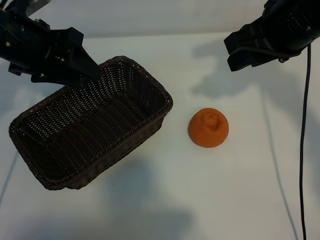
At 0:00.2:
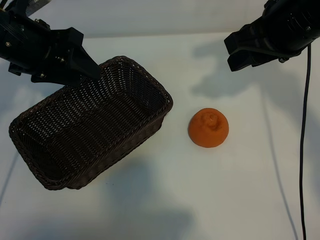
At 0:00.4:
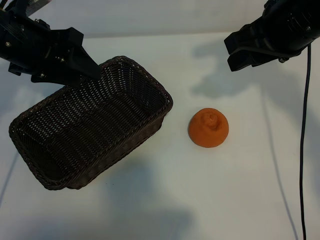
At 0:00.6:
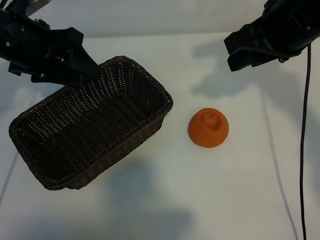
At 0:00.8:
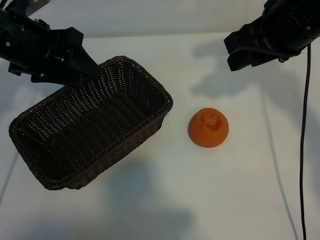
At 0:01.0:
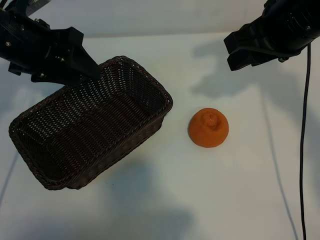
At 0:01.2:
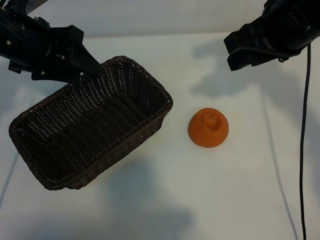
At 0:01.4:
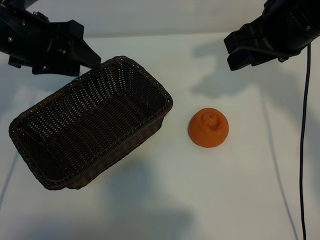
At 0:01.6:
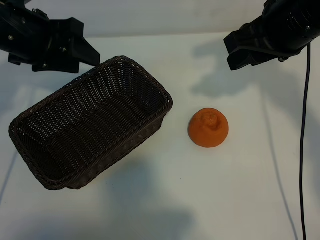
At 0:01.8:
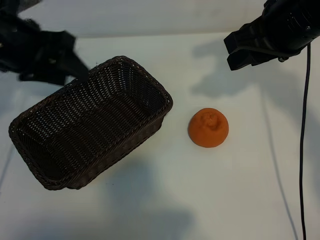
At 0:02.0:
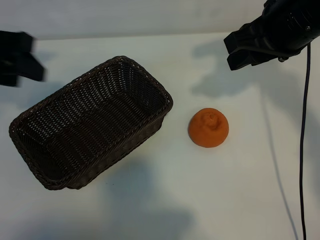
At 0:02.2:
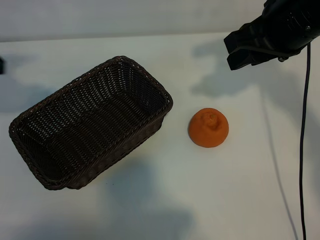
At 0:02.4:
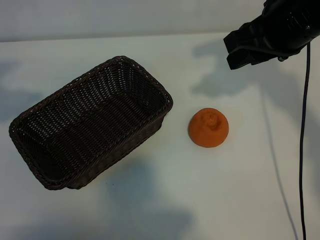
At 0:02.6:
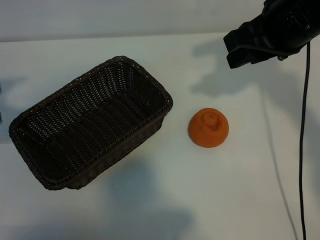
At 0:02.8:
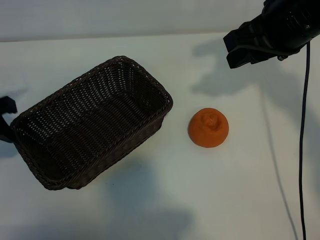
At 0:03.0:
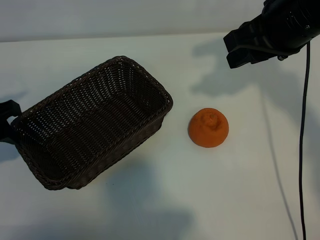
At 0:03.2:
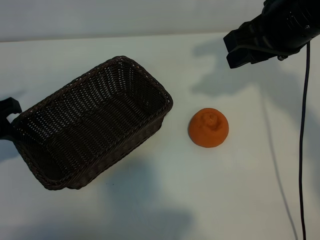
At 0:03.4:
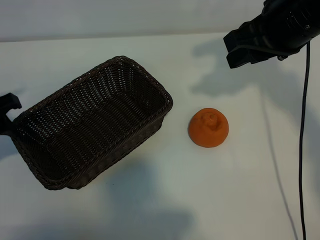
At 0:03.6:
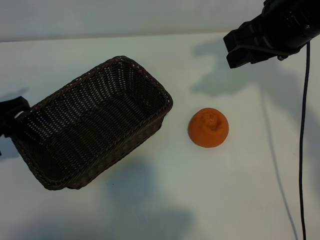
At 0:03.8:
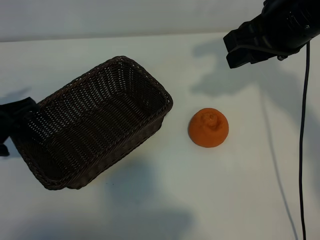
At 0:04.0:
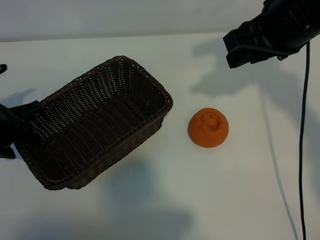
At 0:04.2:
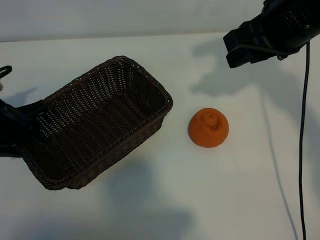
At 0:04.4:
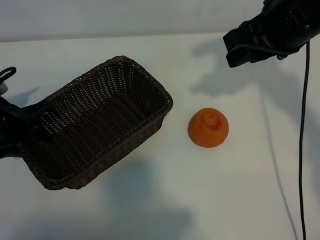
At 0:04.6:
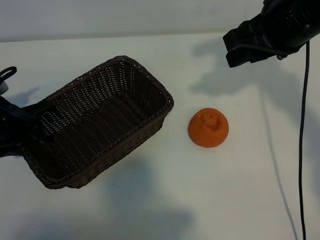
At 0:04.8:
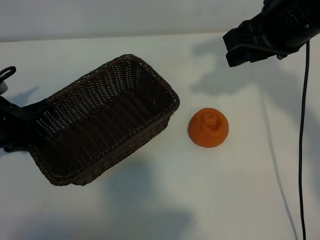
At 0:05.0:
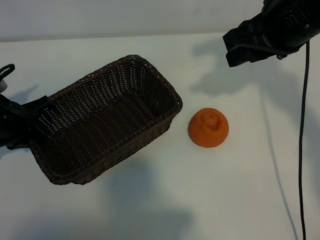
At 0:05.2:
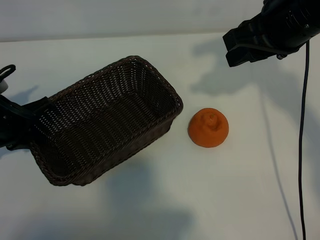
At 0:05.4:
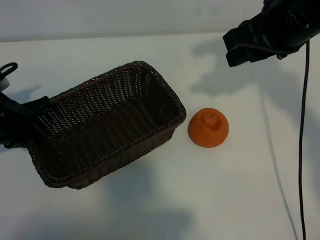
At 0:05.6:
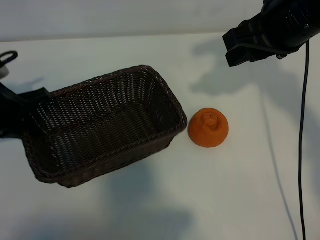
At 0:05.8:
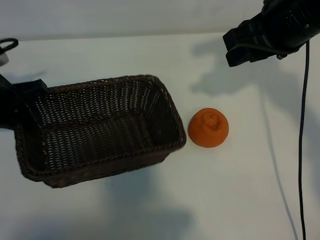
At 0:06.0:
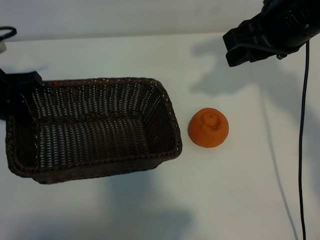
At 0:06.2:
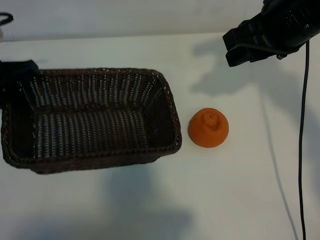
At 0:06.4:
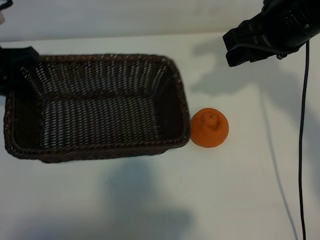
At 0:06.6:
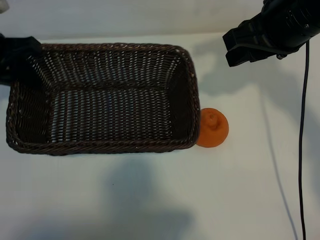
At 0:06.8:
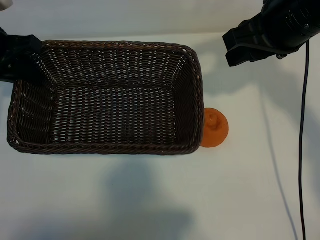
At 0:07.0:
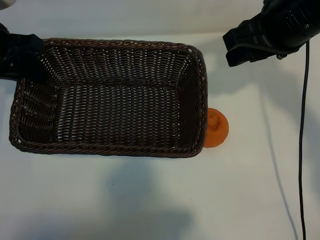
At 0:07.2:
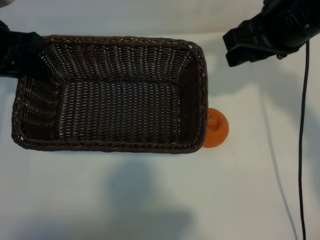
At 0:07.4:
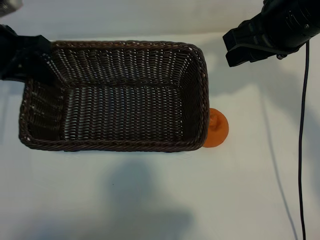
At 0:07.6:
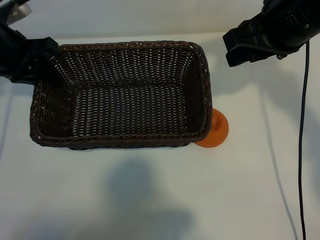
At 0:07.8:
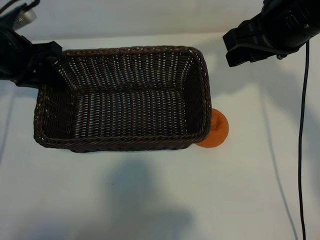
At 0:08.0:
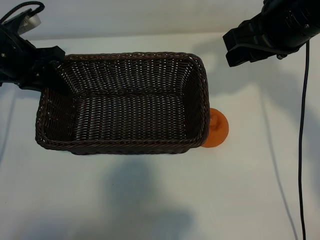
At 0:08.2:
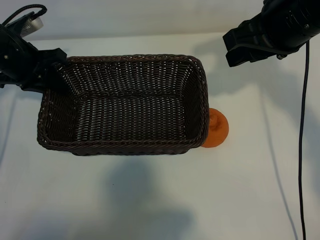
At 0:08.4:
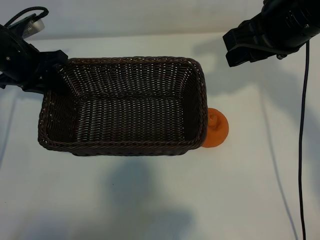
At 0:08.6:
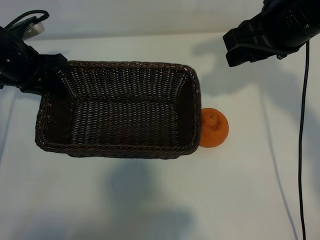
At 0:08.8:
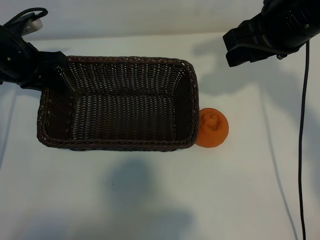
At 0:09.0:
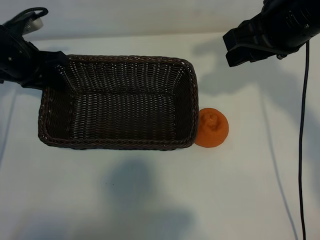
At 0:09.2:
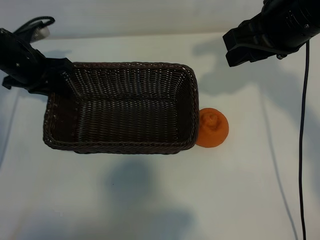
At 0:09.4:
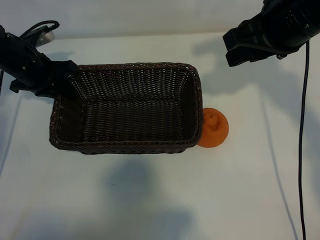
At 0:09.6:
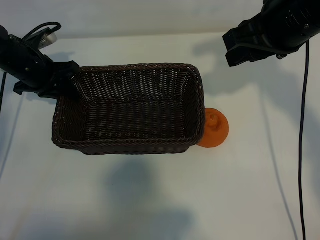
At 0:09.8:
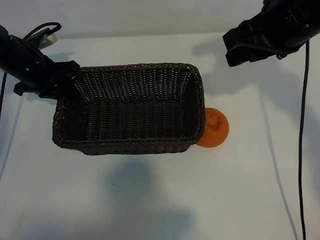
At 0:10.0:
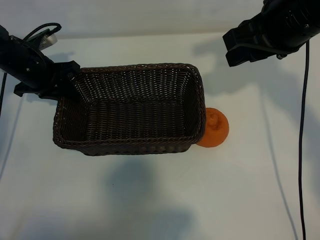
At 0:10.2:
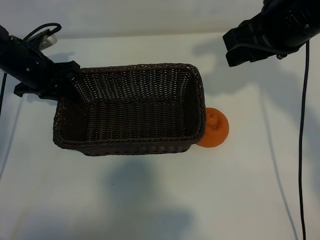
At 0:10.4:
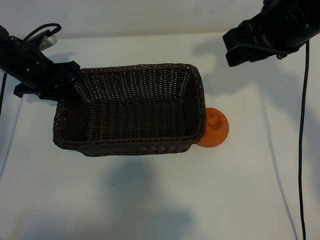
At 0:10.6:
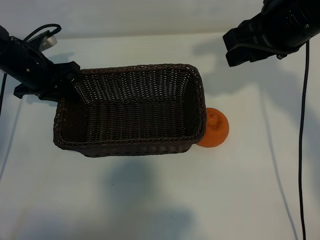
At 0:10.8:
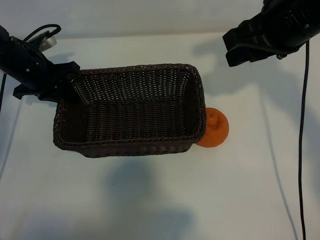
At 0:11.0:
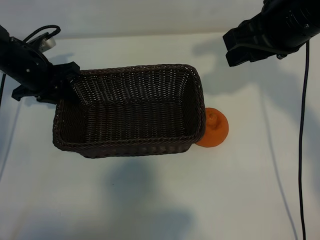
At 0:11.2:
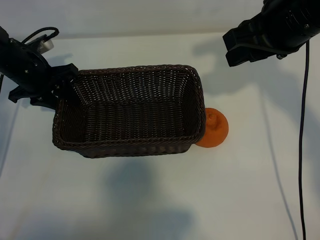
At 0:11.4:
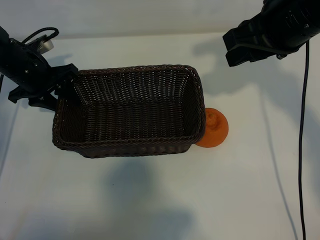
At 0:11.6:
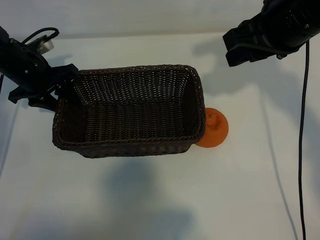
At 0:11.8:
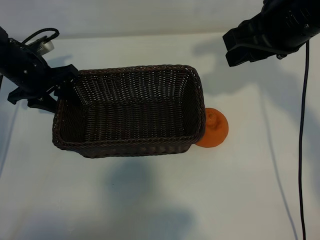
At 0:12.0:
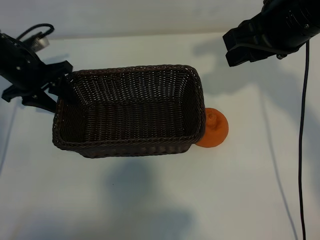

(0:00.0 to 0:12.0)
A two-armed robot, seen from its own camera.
Task of the whole recording: pick up the orange and put it into the basket.
Step, 0:01.2 - 0:04.8: Grasp the basket with left gripper.
Step, 0:05.0 - 0:11.2: Place the basket in the center of view with left gripper.

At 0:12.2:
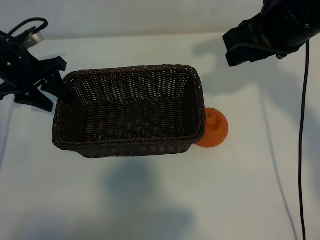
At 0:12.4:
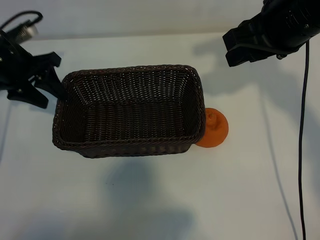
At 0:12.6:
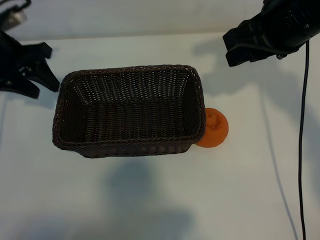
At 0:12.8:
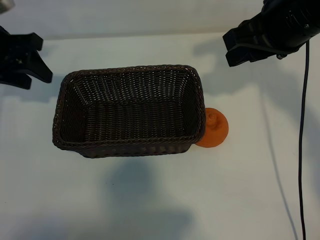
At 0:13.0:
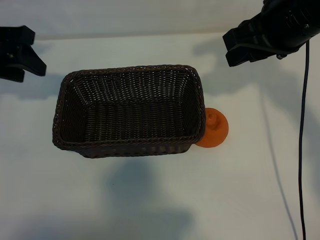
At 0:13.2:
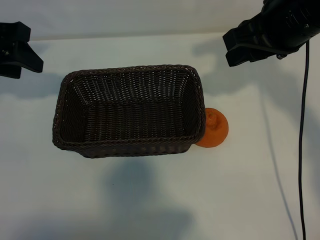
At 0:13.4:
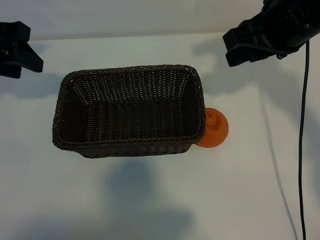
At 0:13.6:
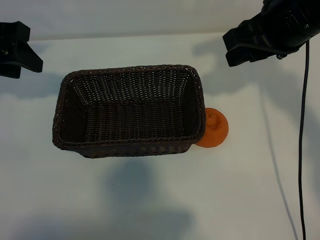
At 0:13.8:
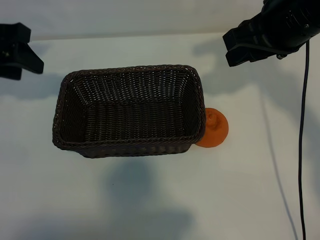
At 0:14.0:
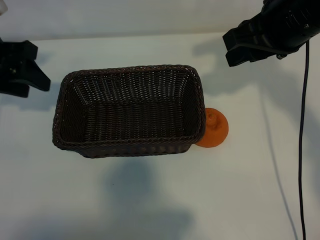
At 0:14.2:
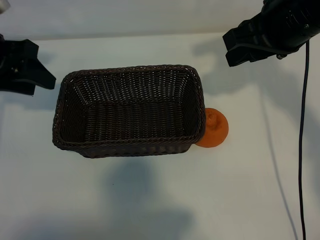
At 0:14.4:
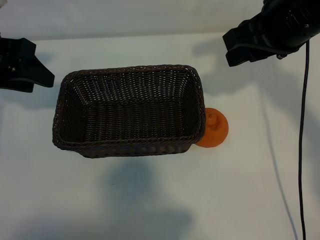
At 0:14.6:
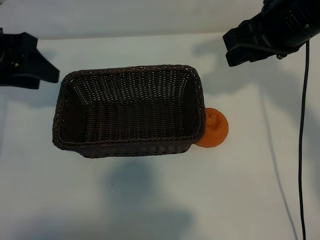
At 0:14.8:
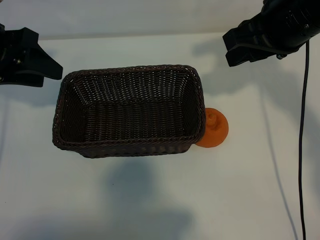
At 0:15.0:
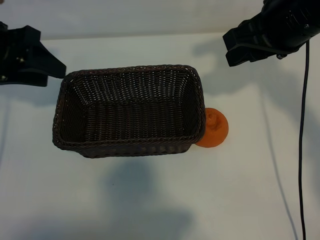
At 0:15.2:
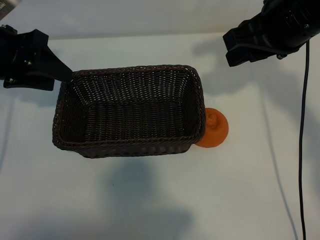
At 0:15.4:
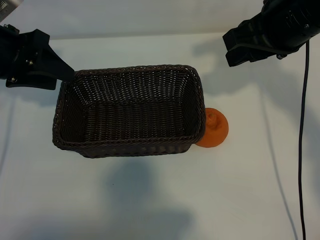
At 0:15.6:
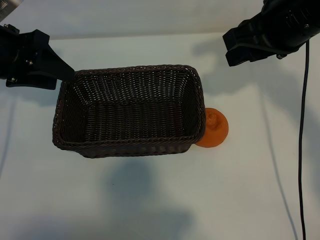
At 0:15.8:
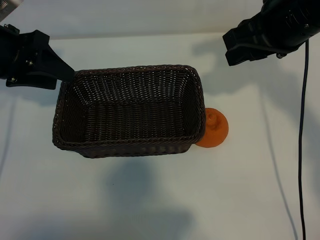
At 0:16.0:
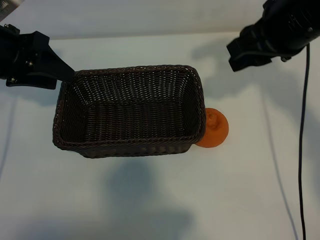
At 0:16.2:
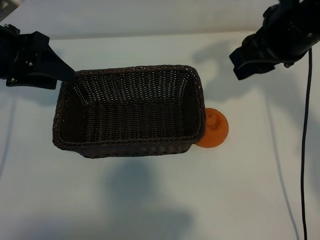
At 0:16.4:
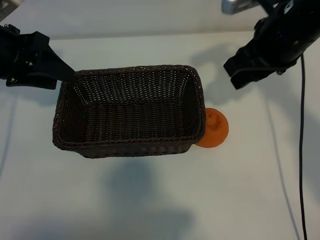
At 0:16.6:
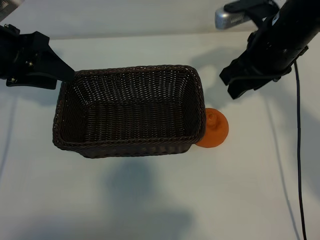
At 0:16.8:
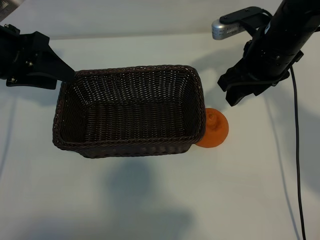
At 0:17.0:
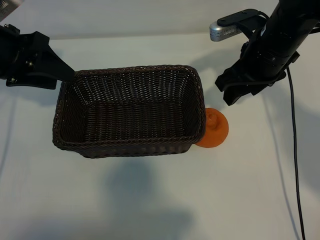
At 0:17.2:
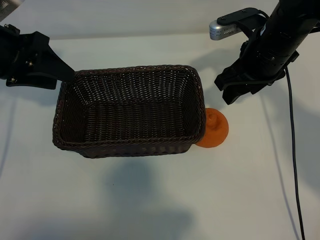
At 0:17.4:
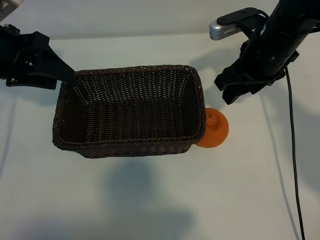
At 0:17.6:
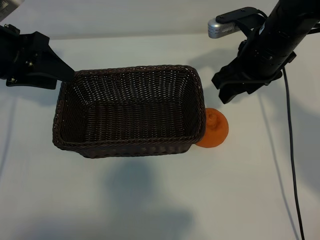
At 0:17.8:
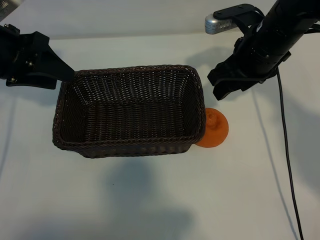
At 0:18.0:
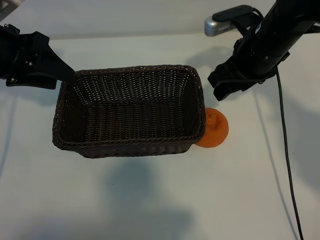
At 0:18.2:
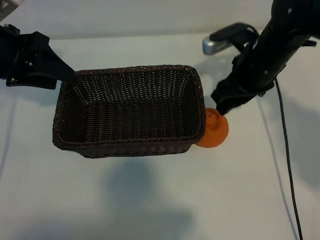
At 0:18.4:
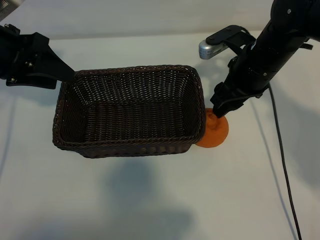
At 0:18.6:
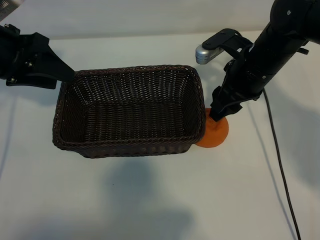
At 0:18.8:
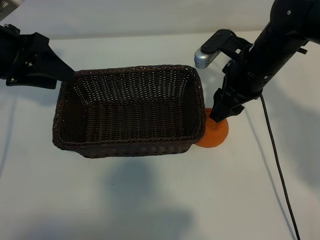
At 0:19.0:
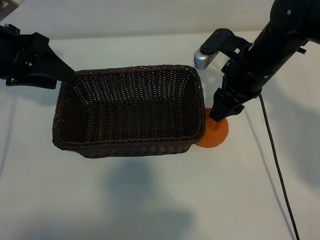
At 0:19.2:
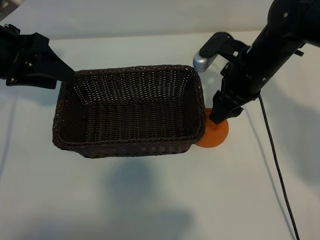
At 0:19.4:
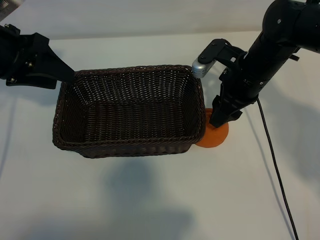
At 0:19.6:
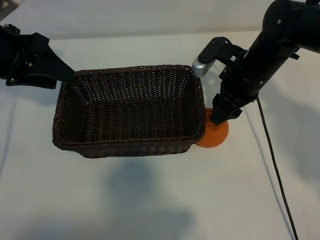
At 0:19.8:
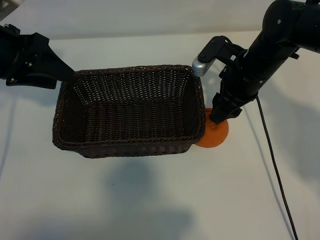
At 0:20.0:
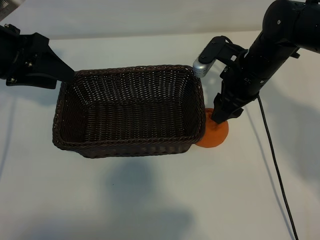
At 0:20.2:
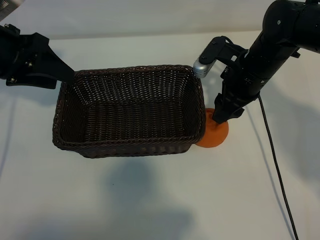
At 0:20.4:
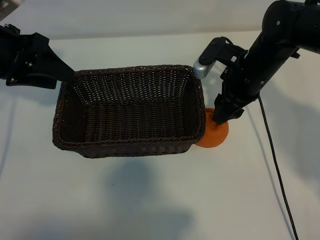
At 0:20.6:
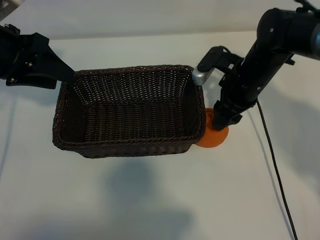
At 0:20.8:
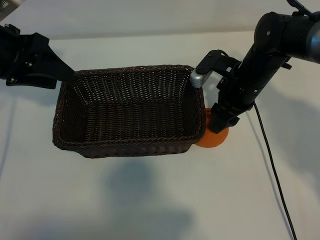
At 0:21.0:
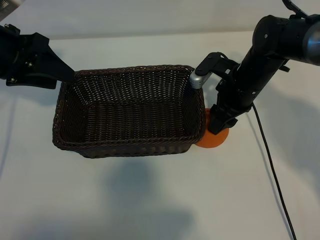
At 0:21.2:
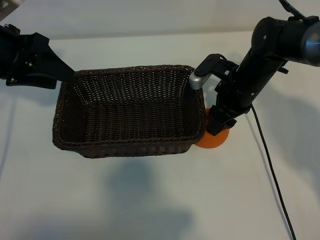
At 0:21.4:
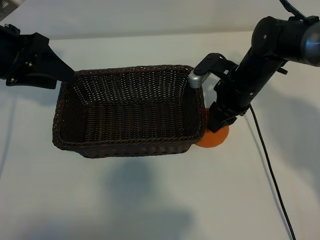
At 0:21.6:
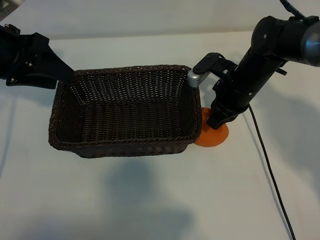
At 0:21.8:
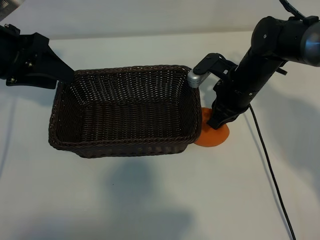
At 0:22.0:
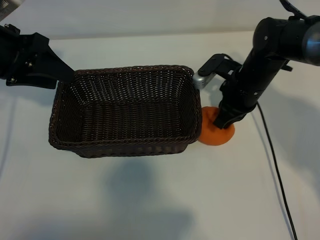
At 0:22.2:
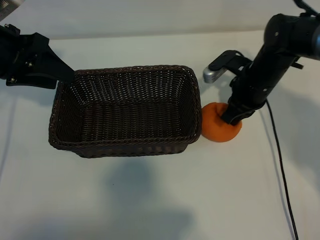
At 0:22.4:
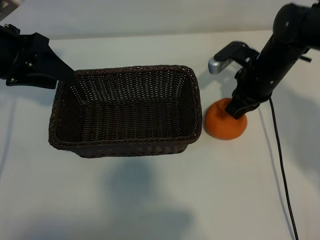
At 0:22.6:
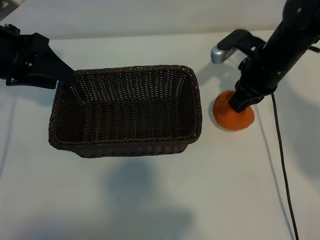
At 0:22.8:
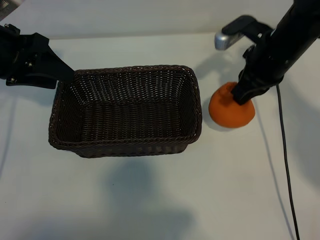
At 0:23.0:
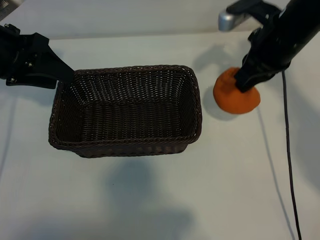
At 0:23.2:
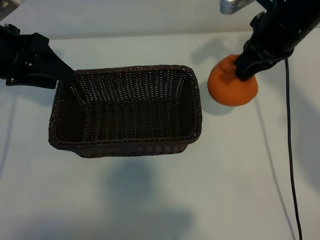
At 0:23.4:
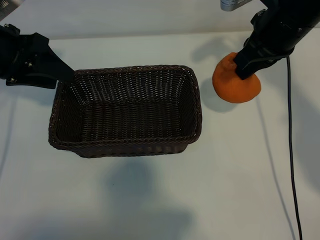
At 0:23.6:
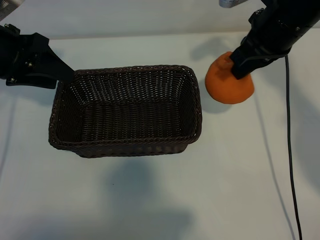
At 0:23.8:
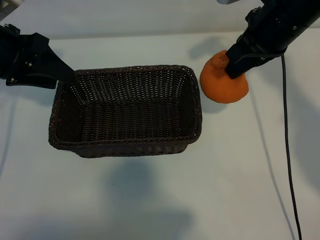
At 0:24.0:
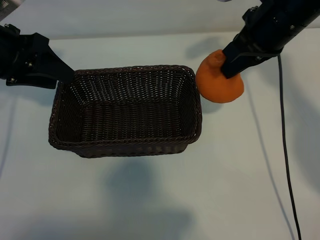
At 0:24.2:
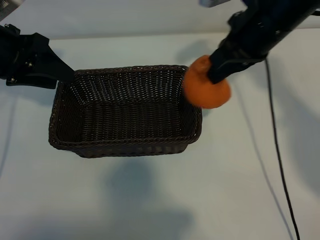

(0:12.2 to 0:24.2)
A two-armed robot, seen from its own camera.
Task of the whole recording: pick up the orange and put it into the basket.
Step, 0:12.2 - 0:21.4: Grasp the orange with right gripper.
